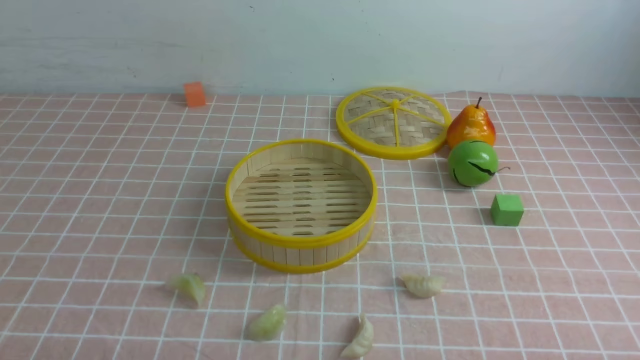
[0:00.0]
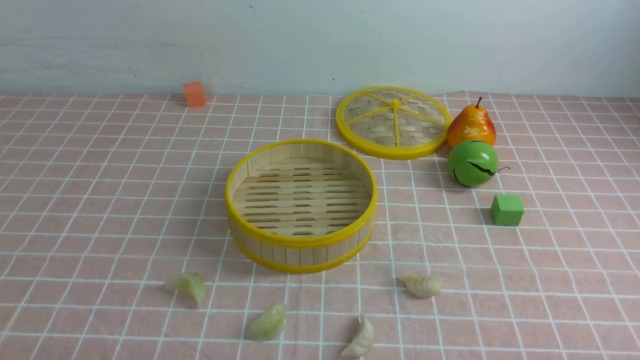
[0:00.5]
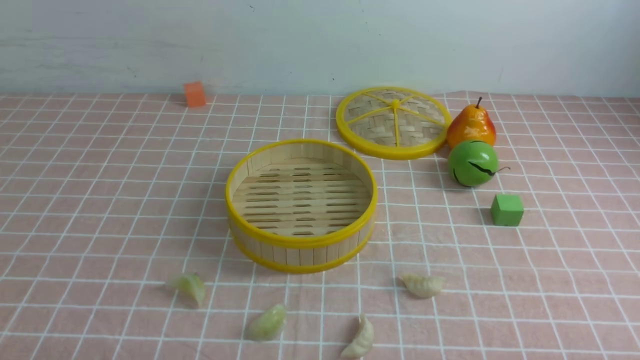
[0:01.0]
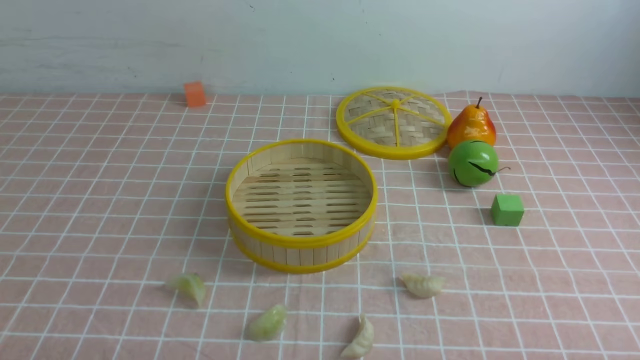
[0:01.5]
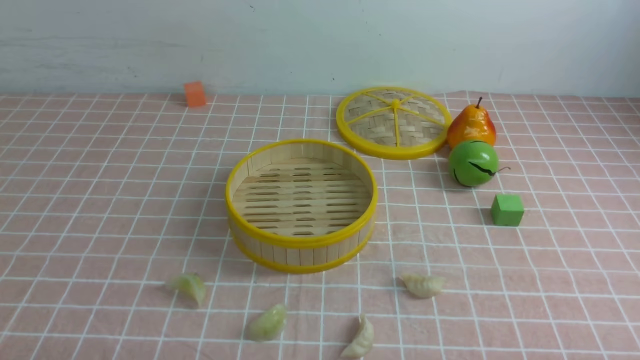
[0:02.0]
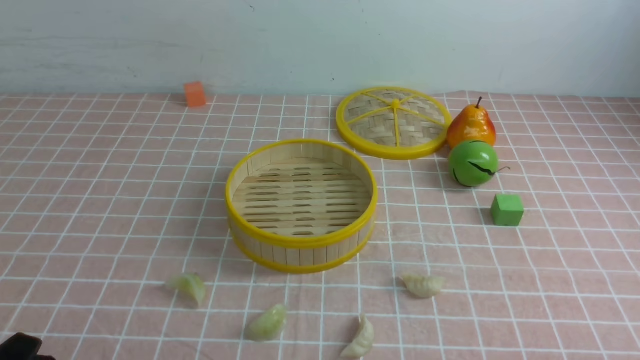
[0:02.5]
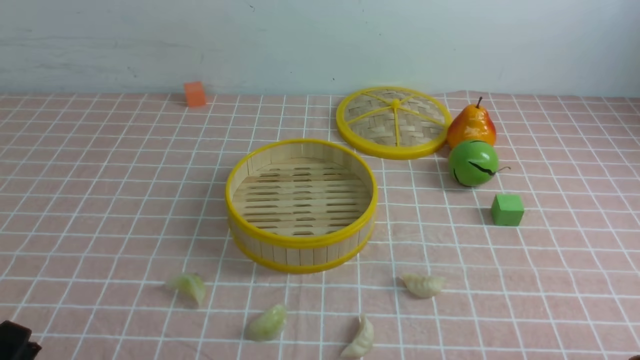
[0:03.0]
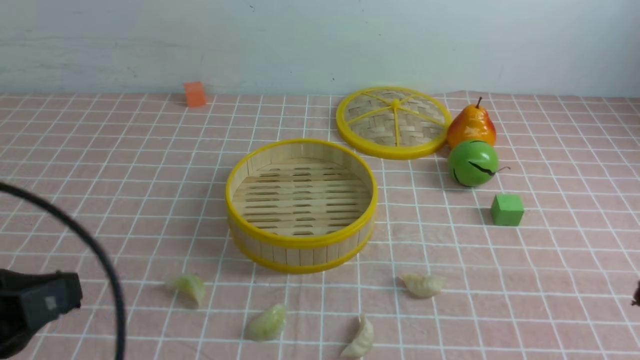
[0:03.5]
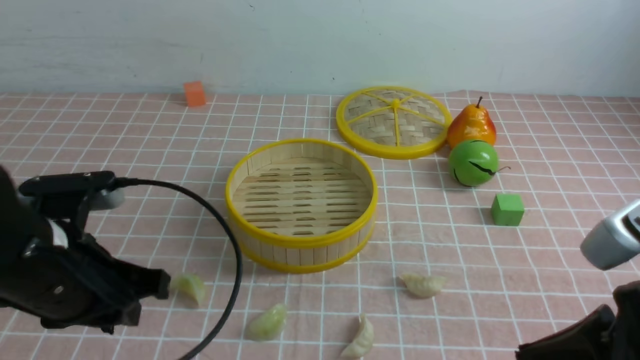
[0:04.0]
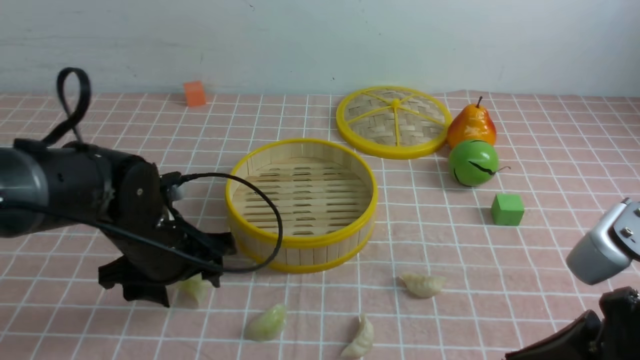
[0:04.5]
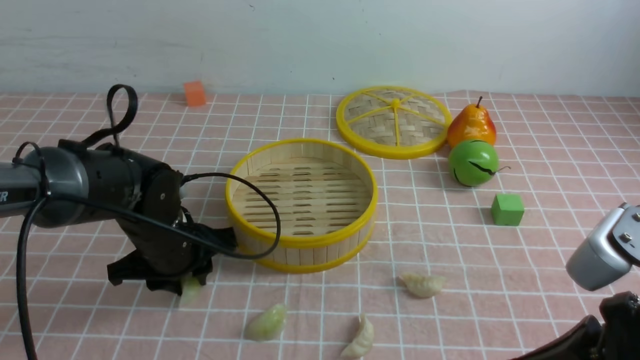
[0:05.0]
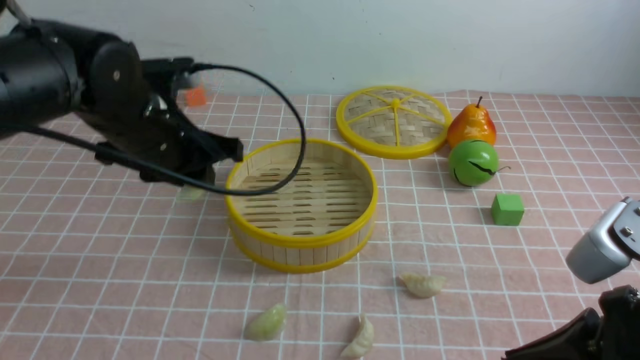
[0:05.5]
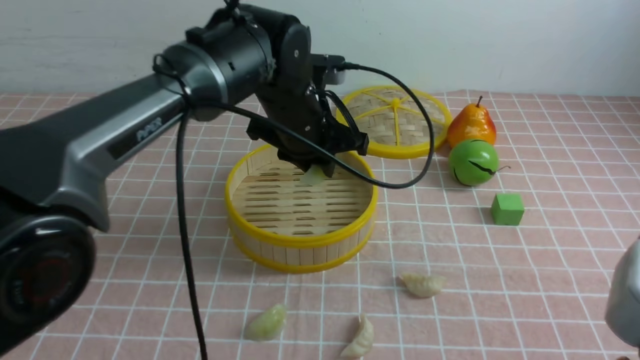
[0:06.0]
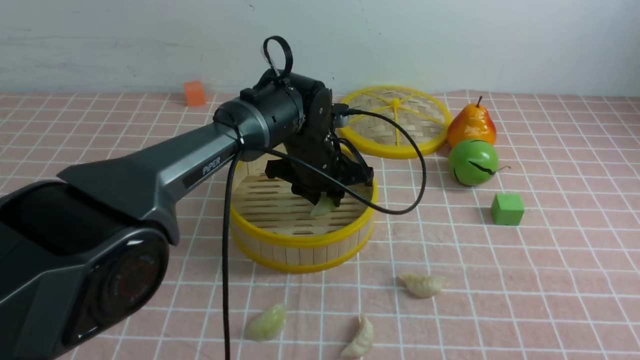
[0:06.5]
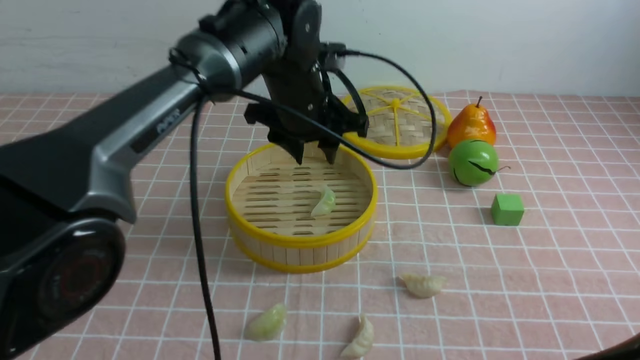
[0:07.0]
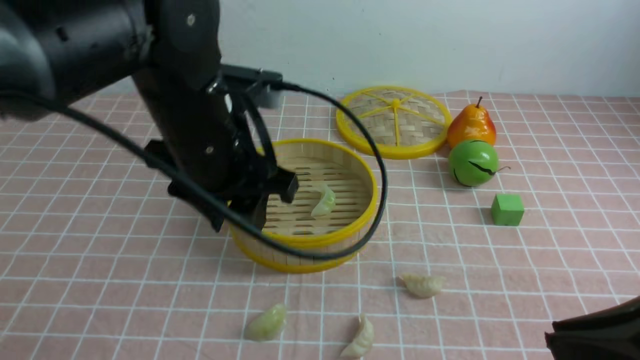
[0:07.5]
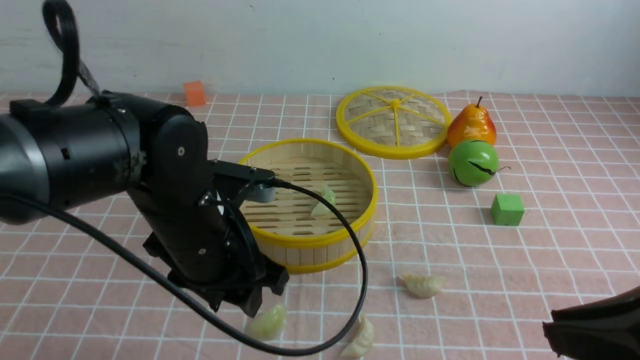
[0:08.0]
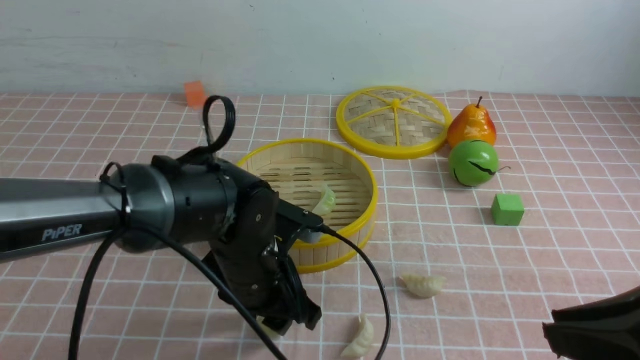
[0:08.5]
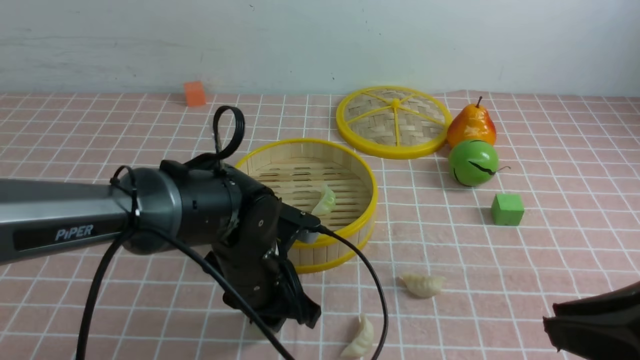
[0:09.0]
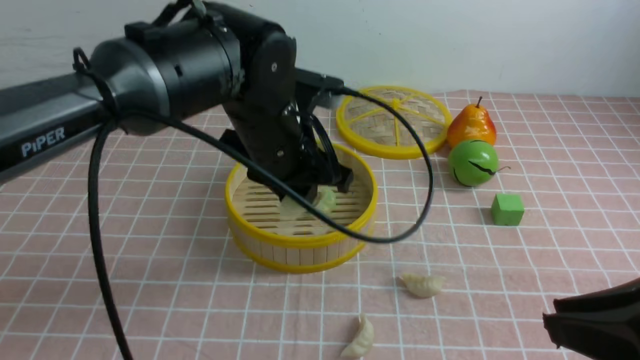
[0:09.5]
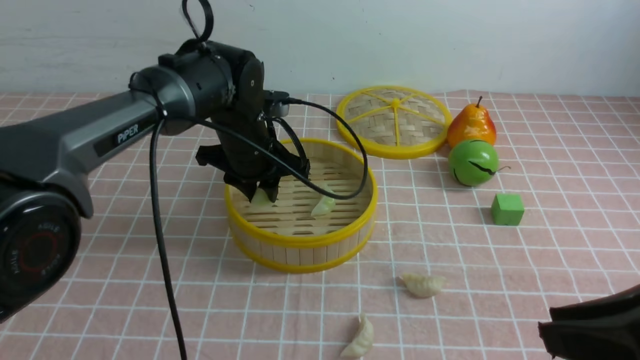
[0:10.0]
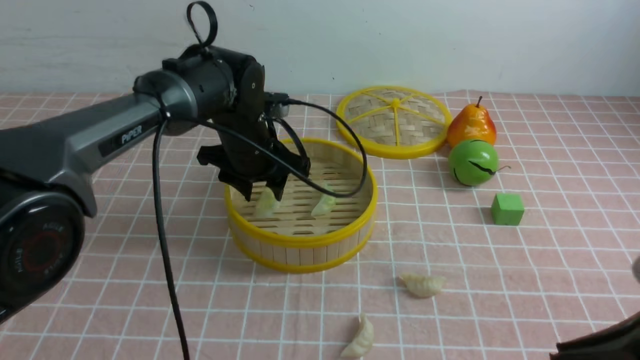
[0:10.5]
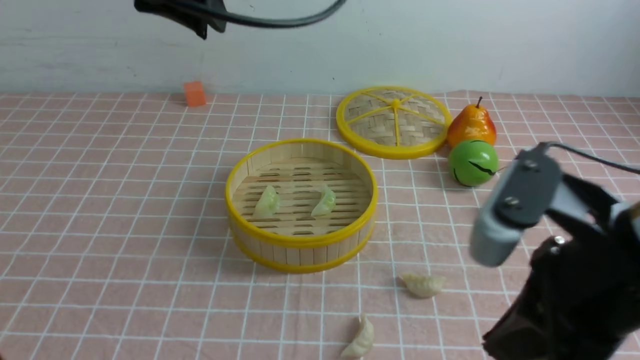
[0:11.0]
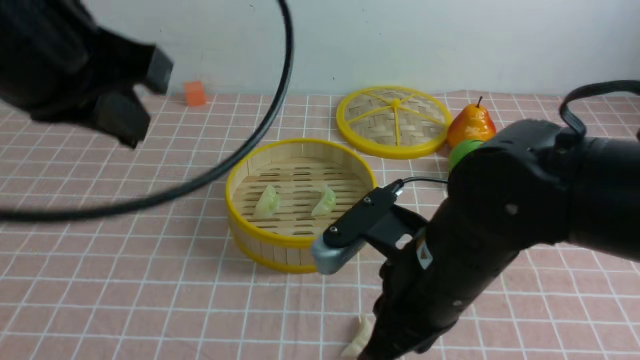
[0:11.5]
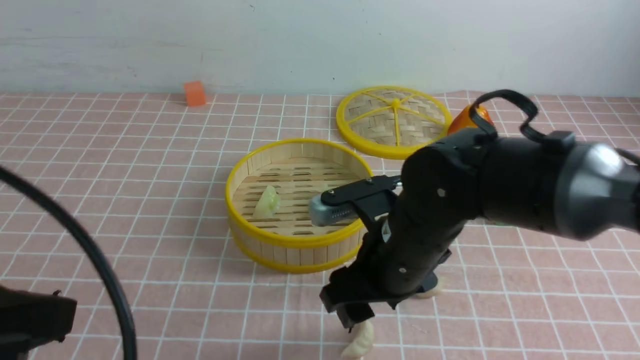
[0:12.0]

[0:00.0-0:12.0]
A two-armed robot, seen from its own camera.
Task of the whole recording: put the dumplings into the steamer on the table with the pink tablecloth.
Step, 0:00.0 to 0:05.0: use the left arm to grab a dumpling.
Step, 0:05.5 to 0:06.5: use the left arm to put the dumpling into the steamer.
Step, 0:07.0 to 0:09.0: use the left arm to grab a dumpling.
Step, 0:09.5 to 0:10.5: use the left arm to put the dumpling into the steamer.
0:02.0 to 0:04.0: The right gripper goes some 15 cm upward, forward and to the left, and closes. The left gripper heads forward and upward, covering about 20 cm.
0:04.0 to 0:06.0: The left gripper moves forward and to the right, about 25 cm, and opens and closes again.
0:06.0 to 0:08.0: The left gripper moves backward and to the left, approximately 15 cm, and opens up.
0:08.0 to 0:10.0: The left gripper heads forward, covering approximately 15 cm.
0:10.0 to 0:12.0: The left gripper moves backward, upward and to the left, about 35 cm, and closes up, while the right gripper goes approximately 25 cm to the left, forward and downward, and opens up.

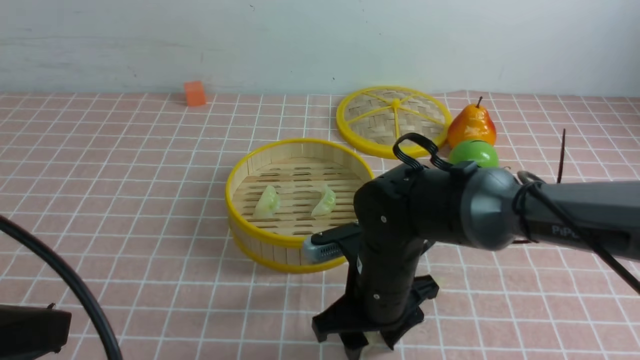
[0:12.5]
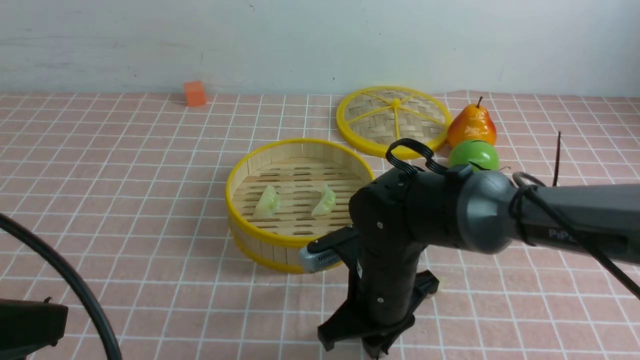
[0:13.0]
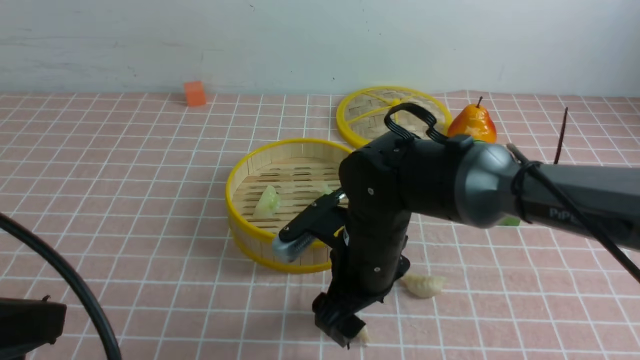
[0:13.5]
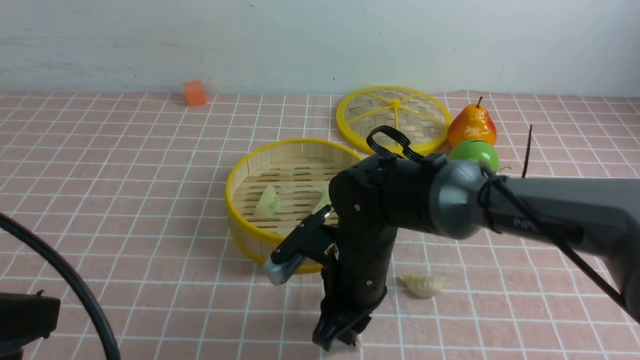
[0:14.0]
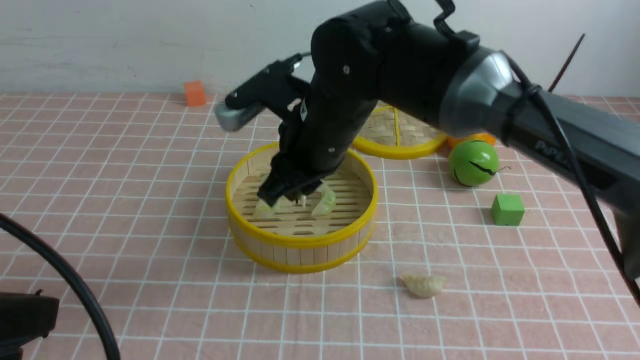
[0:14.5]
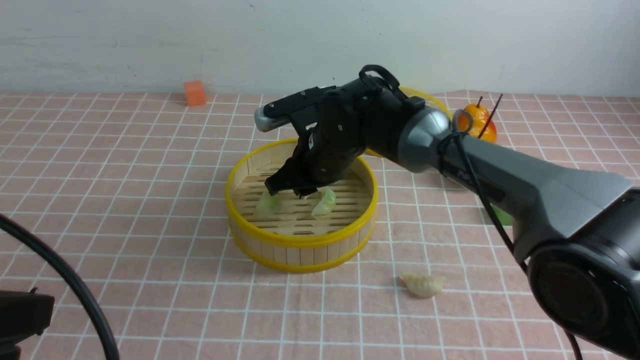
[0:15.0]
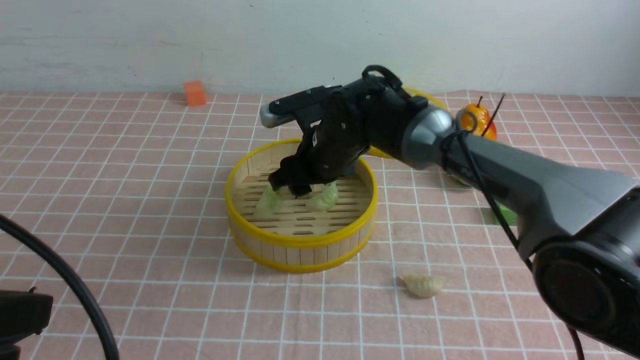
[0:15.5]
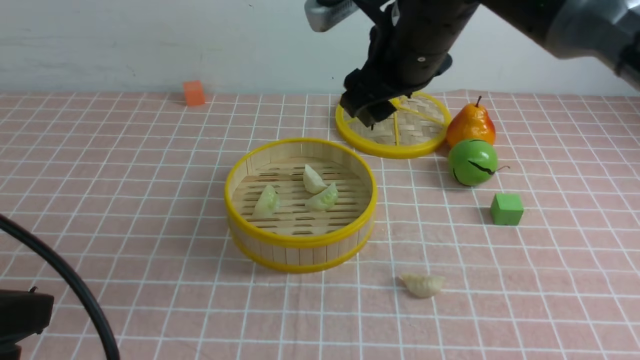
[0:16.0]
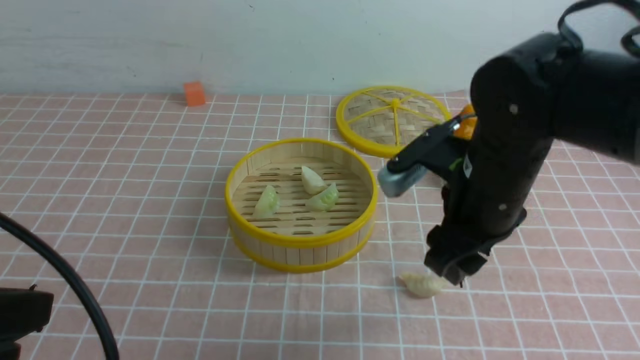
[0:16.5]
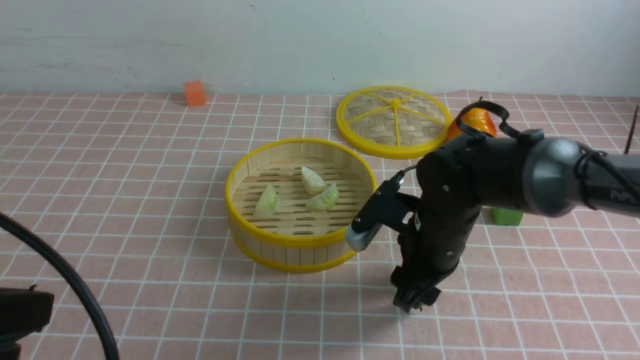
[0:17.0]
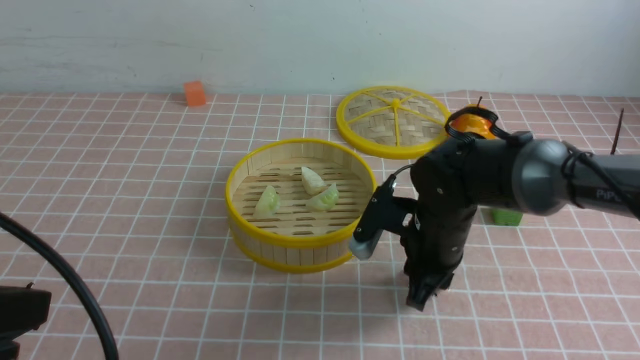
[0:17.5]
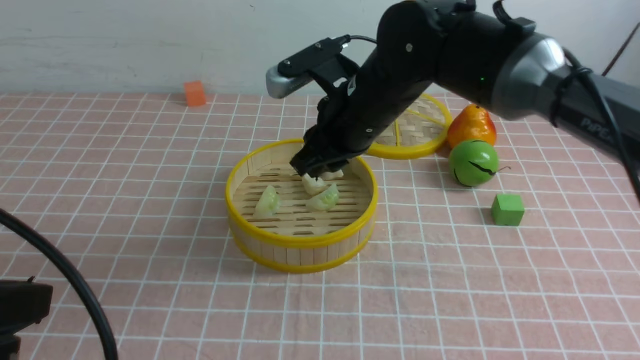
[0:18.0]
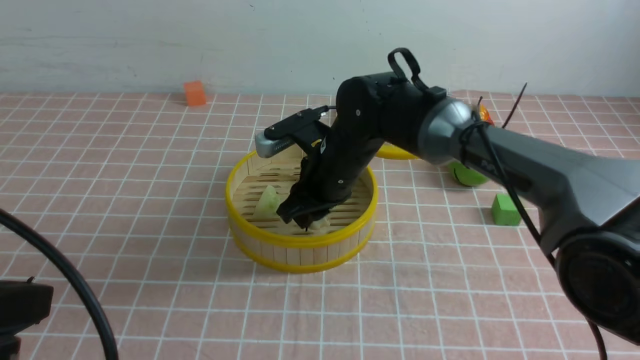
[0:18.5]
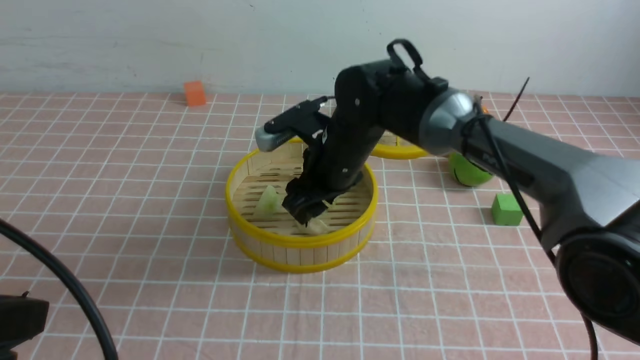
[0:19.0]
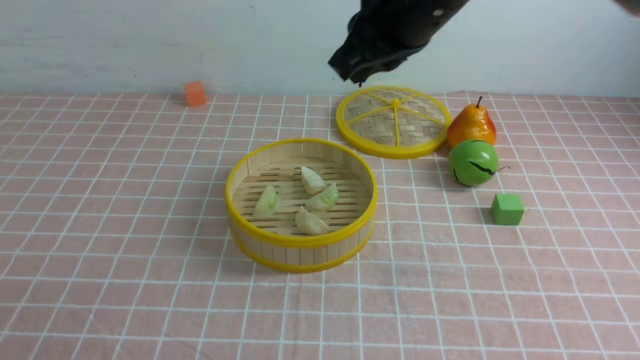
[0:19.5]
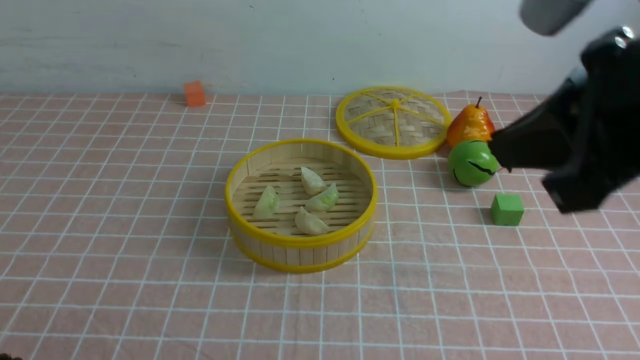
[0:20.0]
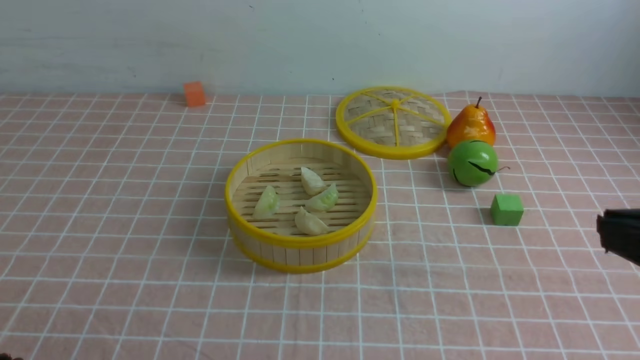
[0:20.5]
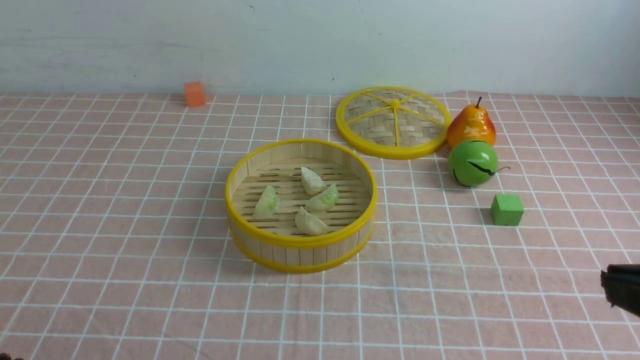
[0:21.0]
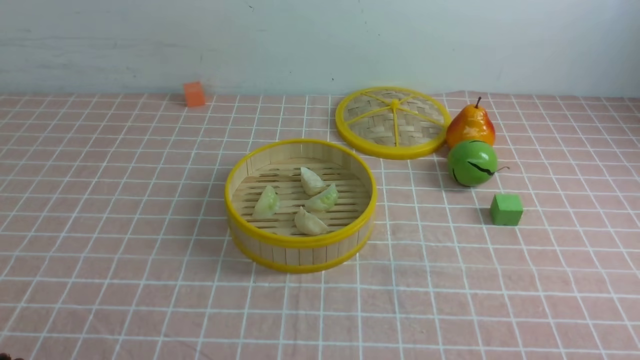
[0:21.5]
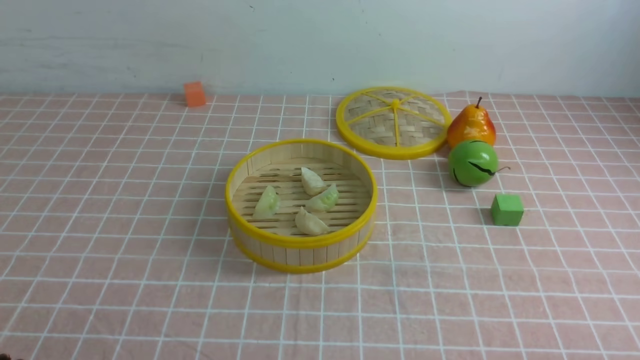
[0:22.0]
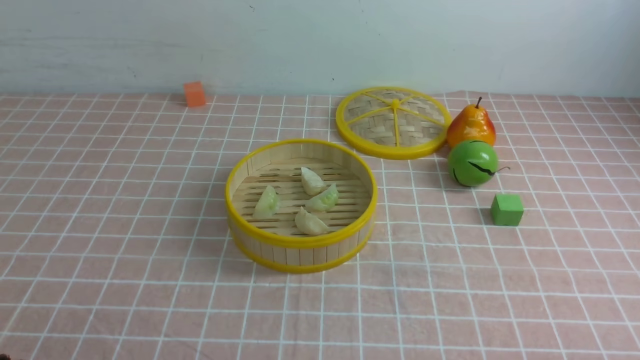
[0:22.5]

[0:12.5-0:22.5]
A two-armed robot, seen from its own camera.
Task of the whole recording: put the dumplings into the steamer on the table with the pink tablecloth.
Step, 0:14.5 to 0:15.5: use the right arm to put the dumpling into the steamer.
Step, 0:16.0 to 0:17.5: use the right arm to grab a dumpling.
Step, 0:18.0 to 0:19.0: use the right arm to put the dumpling into the steamer.
0:12.5 to 0:14.5: The right gripper travels upward and forward by roughly 10 cm, and closes up.
0:14.5 to 0:16.5: The right gripper swings up and down, roughly 15 cm each way, with 2 reversals, and opens up.
0:16.5 to 0:18.5: The right gripper moves up and down over about 10 cm, changing direction 2 times, and closes up.
0:18.5 to 0:20.5: The left gripper travels downward and backward by about 10 cm. Meanwhile the right gripper is displaced backward, to the right and upward by about 40 cm, and closes its fingers.
0:20.5 to 0:22.5: The right gripper travels downward and to the right by roughly 25 cm.
